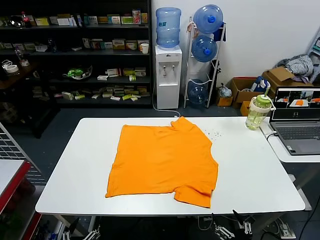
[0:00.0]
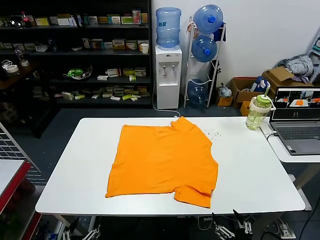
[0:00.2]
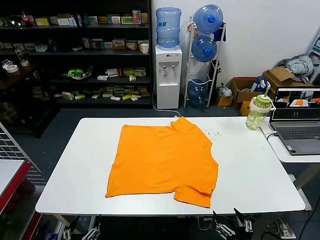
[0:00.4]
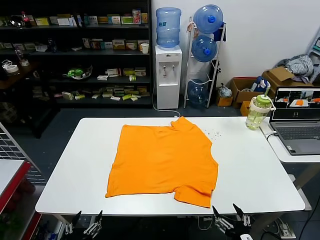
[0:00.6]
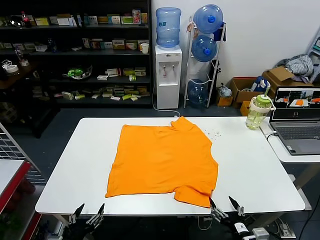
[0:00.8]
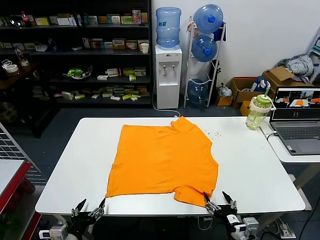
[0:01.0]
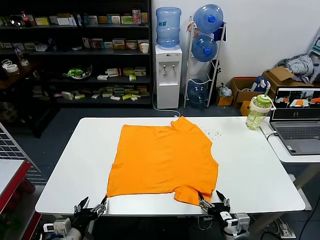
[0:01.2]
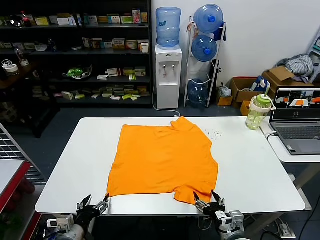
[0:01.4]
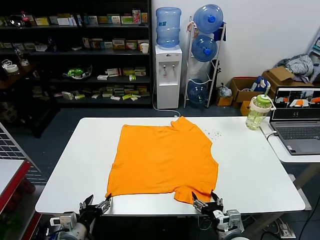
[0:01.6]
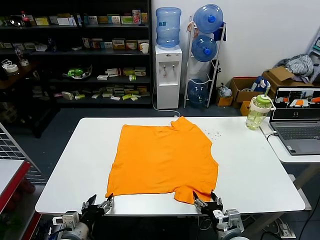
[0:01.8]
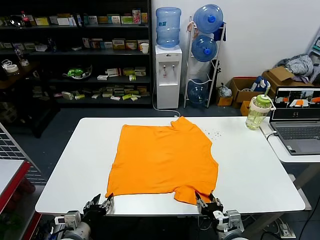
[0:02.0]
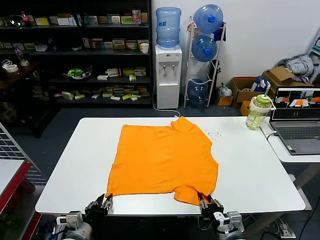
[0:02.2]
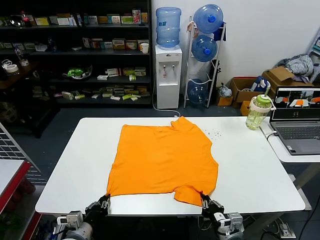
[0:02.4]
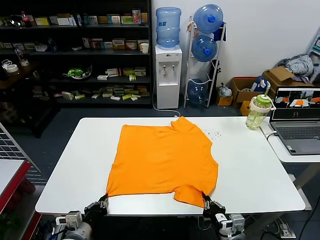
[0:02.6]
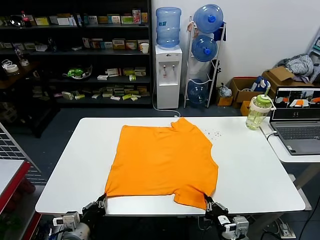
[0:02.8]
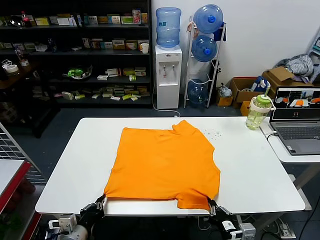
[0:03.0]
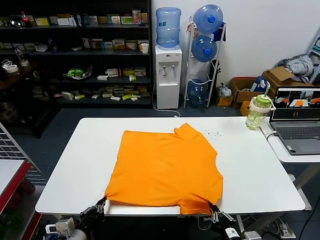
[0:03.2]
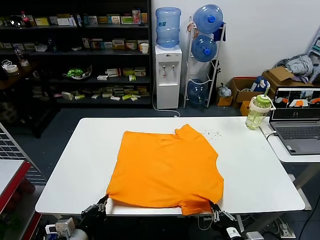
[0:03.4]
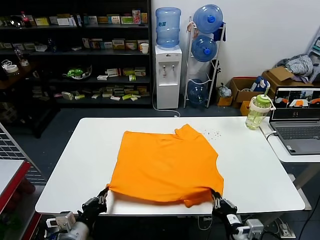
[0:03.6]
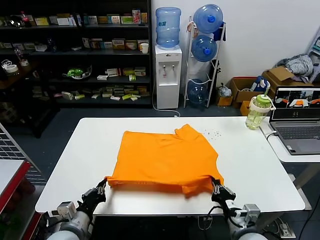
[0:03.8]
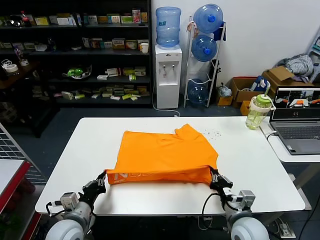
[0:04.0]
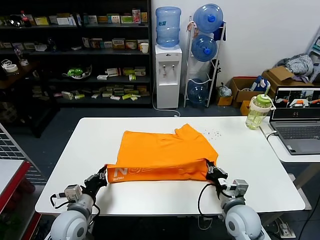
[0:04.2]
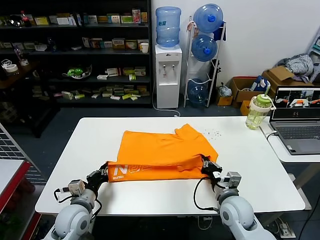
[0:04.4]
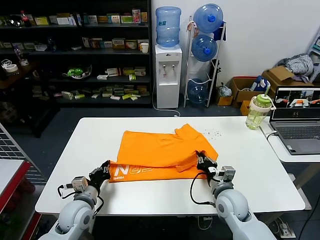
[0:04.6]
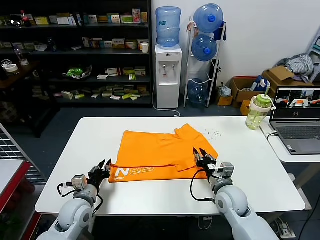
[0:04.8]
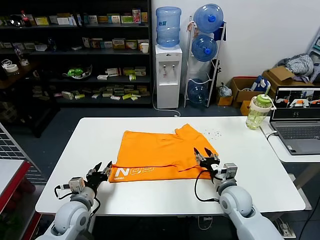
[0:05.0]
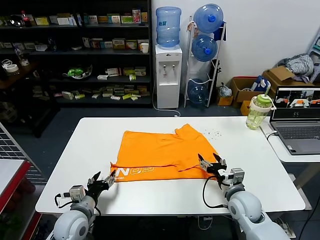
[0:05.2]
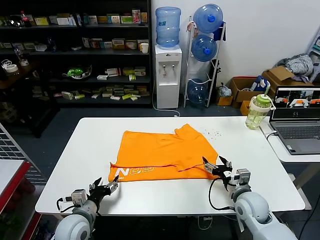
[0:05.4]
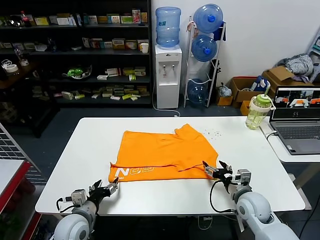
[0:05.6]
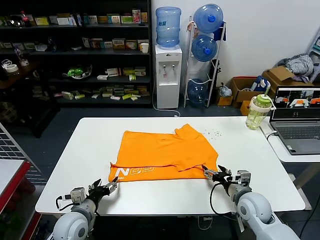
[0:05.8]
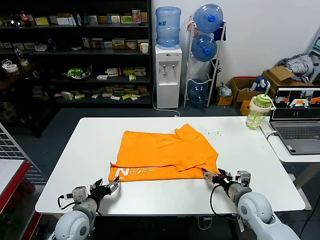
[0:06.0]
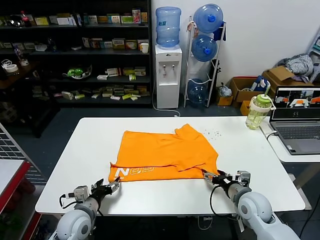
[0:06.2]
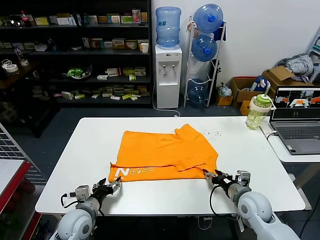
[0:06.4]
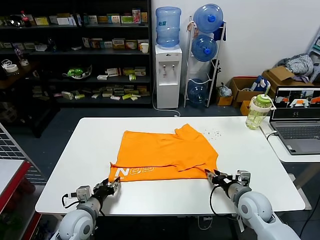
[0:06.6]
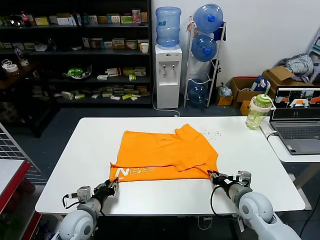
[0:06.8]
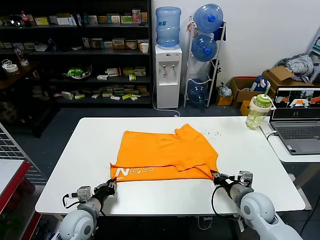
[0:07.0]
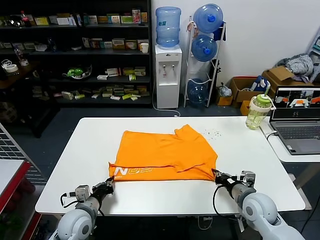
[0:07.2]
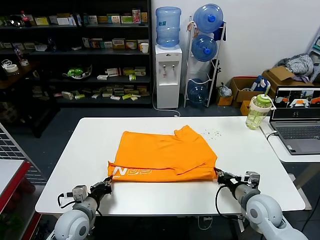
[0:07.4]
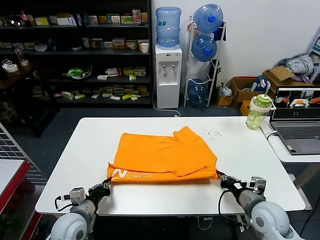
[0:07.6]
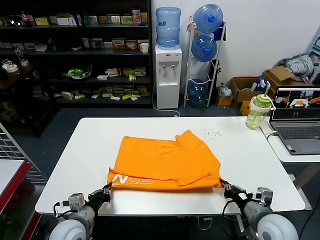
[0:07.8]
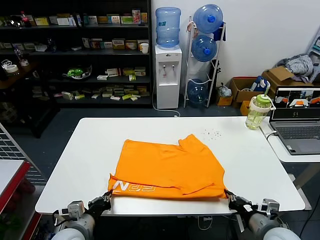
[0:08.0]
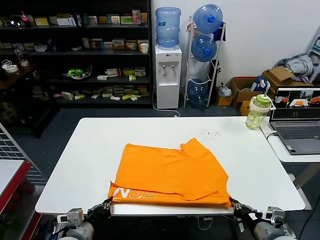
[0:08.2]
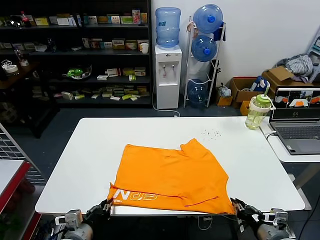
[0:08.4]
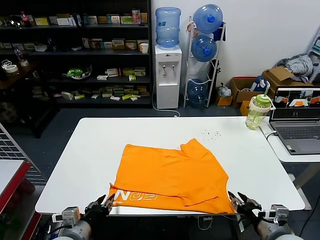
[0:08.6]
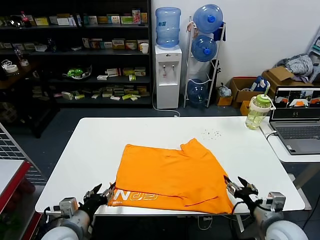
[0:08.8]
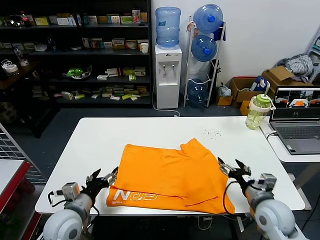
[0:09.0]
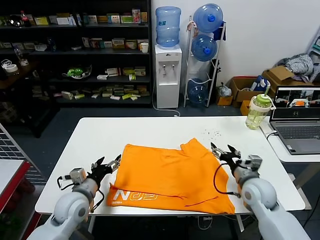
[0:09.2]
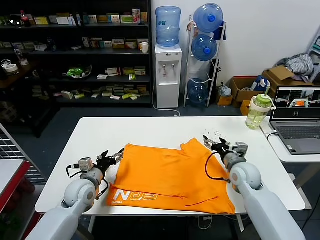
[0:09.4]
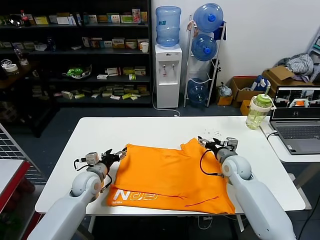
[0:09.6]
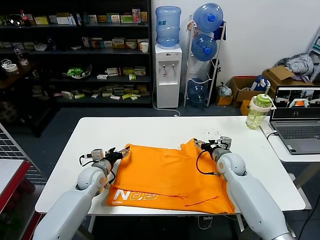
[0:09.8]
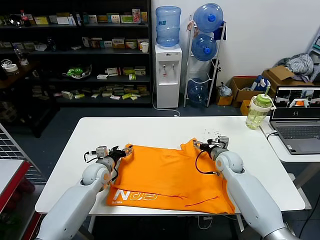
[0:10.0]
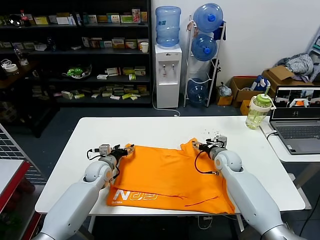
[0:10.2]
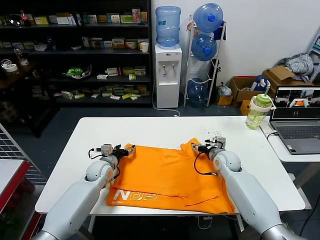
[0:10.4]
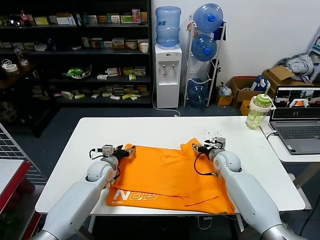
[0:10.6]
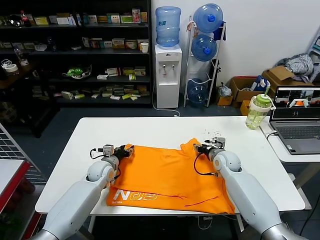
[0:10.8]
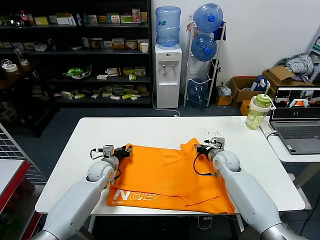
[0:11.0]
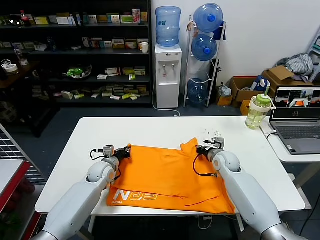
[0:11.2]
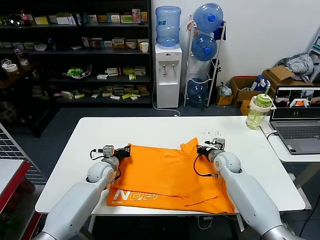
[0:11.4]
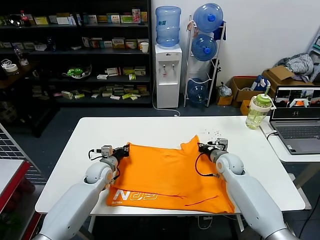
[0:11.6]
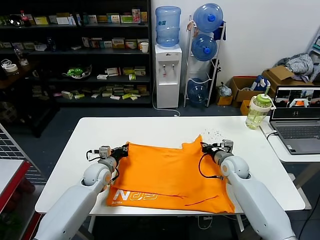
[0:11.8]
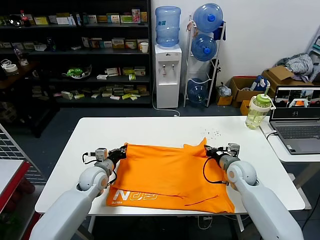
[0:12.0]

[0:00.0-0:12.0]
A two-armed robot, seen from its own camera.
Task of the whole recording: fold and organize the clothes.
Step, 0.0 to 2.4 s: use both grippers simultaneously to clamp the lower edge of the clothing fabric.
Step, 2.6 to 4.6 s: use both grippers to drag the lower edge of the fabric forward and fold it over the upper edge.
Step, 4.8 to 8.4 s: Drag the clothes downward with both gripper.
Step, 8.6 to 11.2 s: use both grippers simultaneously to clamp the upper edge of the clothing fabric.
1.6 to 3.0 s: The right gripper heads backward, covering about 5 cm, and closes its fingers. Meanwhile the left gripper closes its fingers.
3.0 to 4.4 s: The right gripper travels forward by roughly 20 cm; the left gripper heads forward, covering some 10 cm.
4.4 to 6.0 s: The left gripper opens. The right gripper moves to the right, some 5 cm, and opens up.
6.0 to 7.6 s: The left gripper closes its fingers. Meanwhile the right gripper heads backward, covering some 5 cm, and closes up.
7.6 to 9.0 s: The right gripper reaches some 10 cm backward, then returns, and opens up, while the left gripper opens.
9.0 to 10.4 s: Both grippers move forward, about 20 cm.
10.4 to 12.0 s: The left gripper closes up. Meanwhile the right gripper shifts about 5 cm backward, and closes.

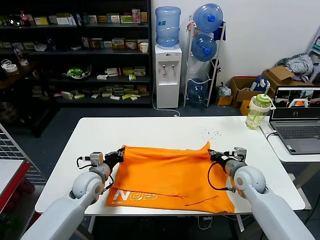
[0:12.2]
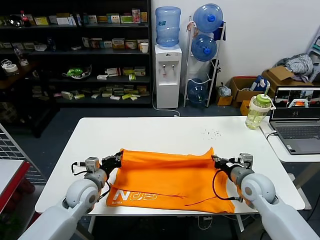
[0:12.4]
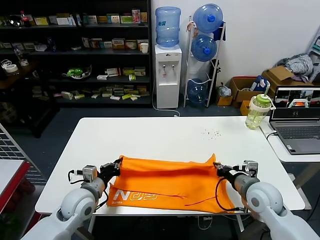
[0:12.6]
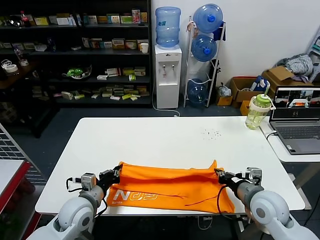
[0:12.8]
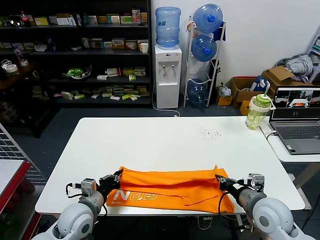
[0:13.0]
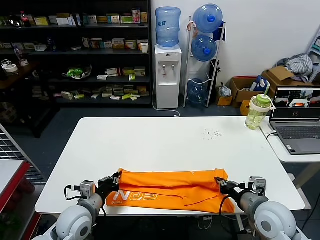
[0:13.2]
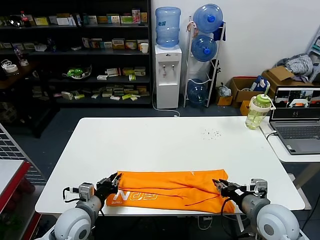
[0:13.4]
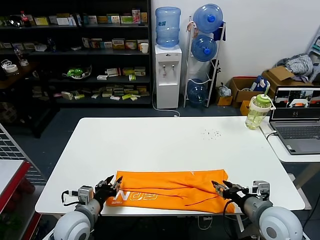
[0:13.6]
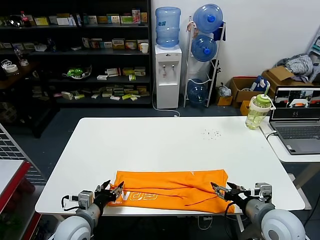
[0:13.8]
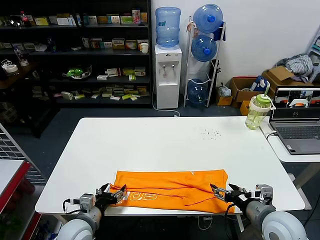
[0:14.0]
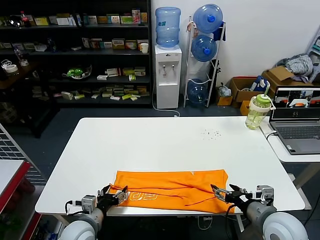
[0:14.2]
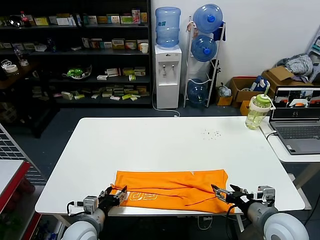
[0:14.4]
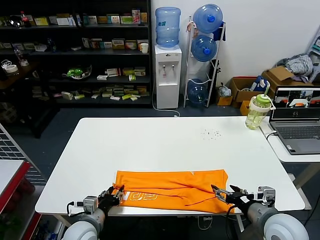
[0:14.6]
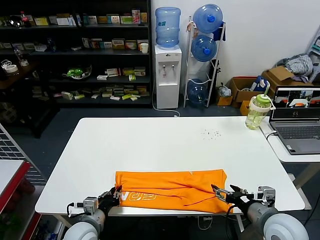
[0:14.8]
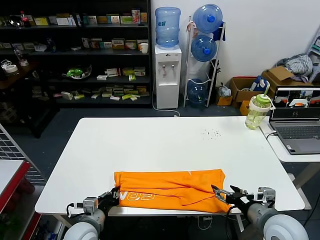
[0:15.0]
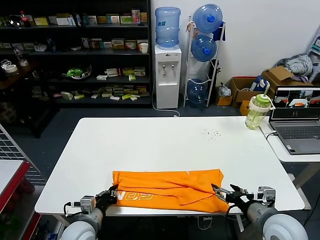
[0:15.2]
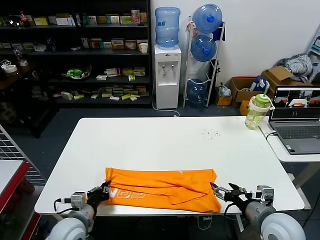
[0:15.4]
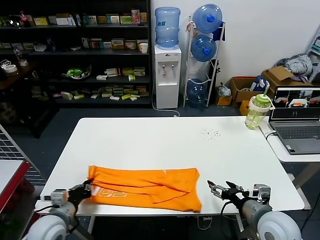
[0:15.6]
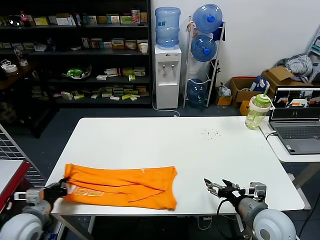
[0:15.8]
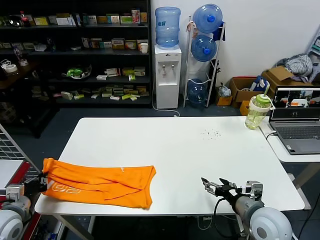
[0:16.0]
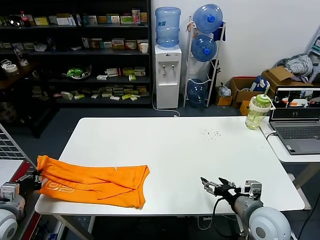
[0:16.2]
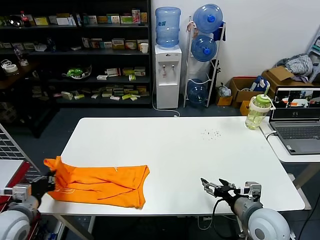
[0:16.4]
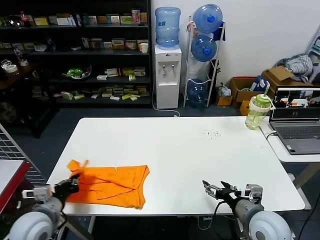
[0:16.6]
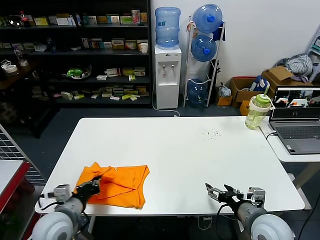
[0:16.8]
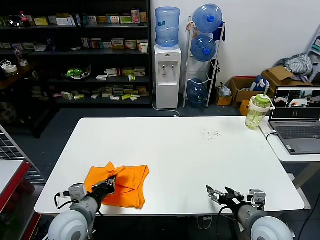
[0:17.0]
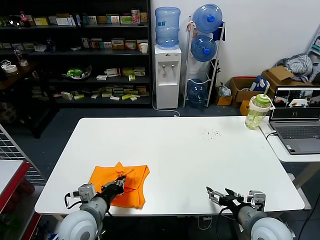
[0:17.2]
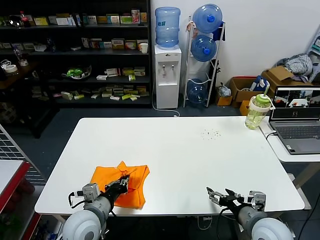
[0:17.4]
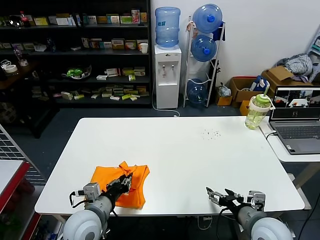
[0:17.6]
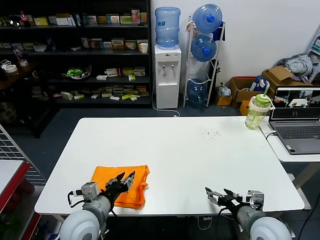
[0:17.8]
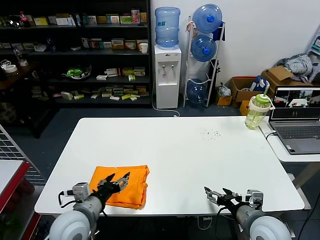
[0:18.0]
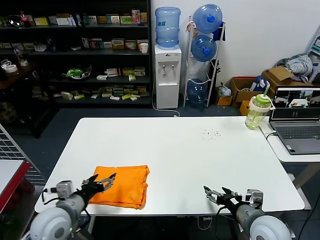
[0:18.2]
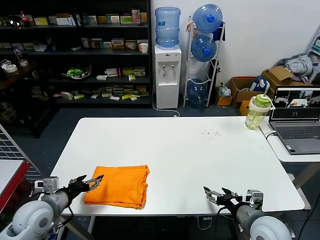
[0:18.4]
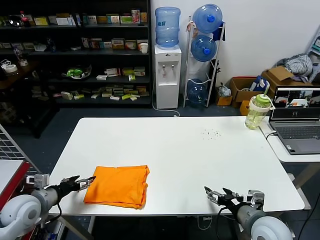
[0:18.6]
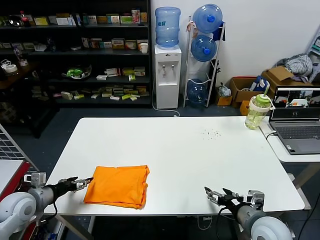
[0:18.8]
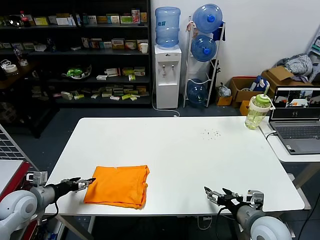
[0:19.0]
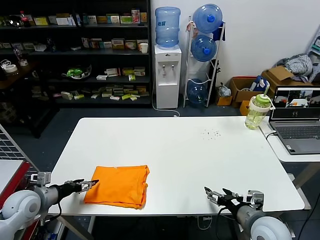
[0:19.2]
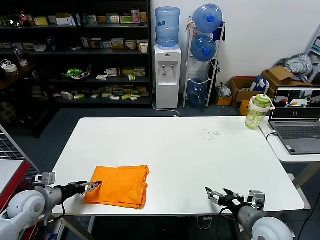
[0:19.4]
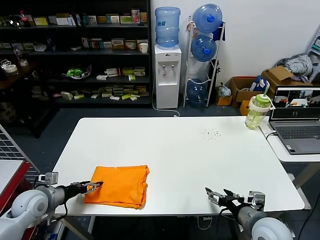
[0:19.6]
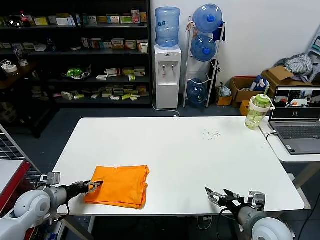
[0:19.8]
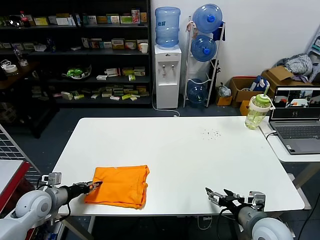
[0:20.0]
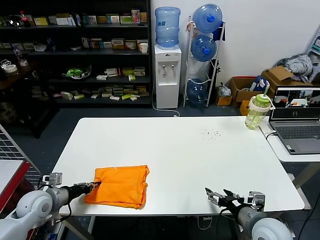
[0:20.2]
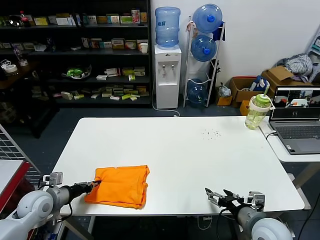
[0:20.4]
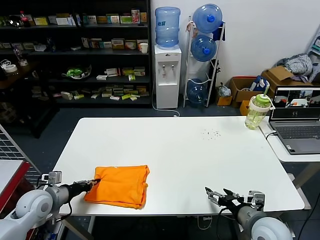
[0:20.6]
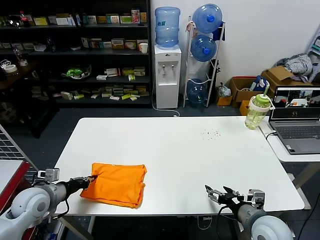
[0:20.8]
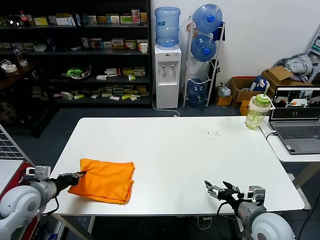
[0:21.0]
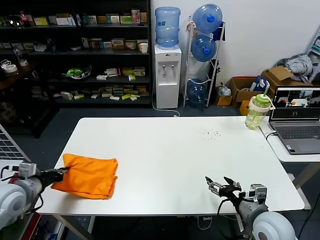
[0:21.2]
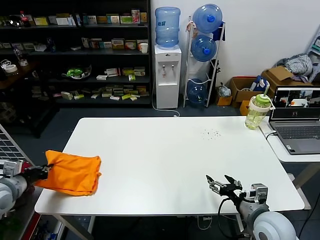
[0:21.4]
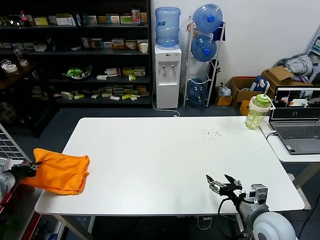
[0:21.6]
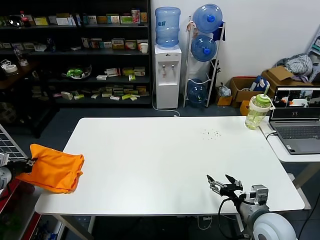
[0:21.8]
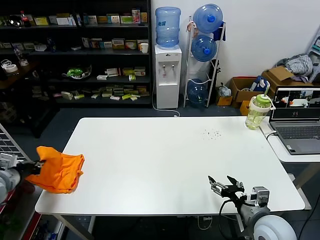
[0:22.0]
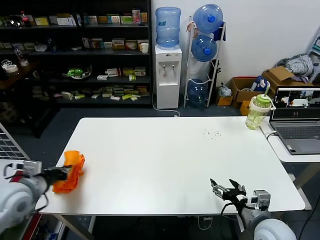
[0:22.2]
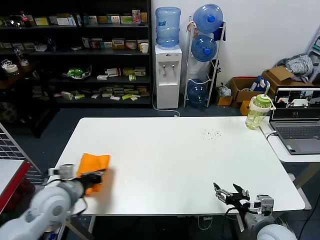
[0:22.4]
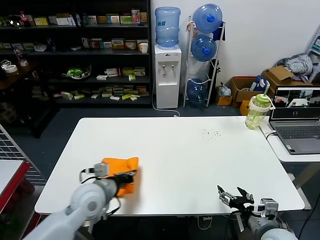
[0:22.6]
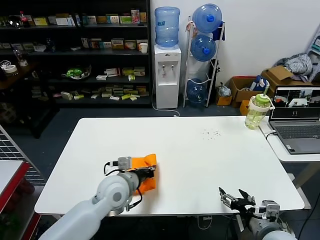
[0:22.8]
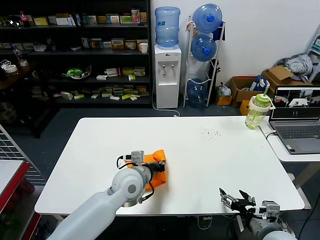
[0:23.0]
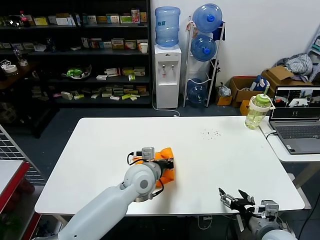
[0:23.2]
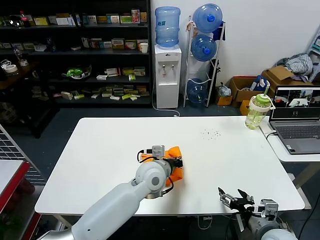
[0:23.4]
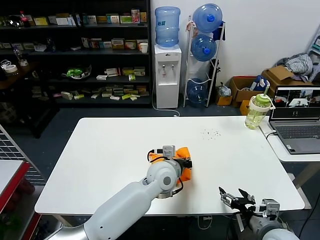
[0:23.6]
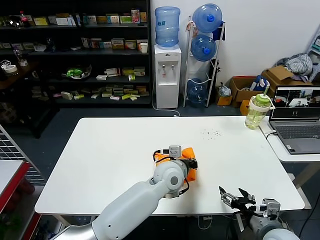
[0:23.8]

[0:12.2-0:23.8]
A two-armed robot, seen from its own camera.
Task of the whole recording: fold and organize the clothes.
Step, 12.2 to 13.4 s: use both grippers to drag the upper edge of the fabric backward and fold it over the lower edge.
Step, 13.6 to 14.8 s: use the left gripper to clamp the left edge of the fabric.
Step, 15.0 to 17.8 s: use the left gripper to drag the left edge of the fabric to the left and folds it over the right edge.
12.2 to 13.6 s: Both grippers travel together backward, approximately 15 cm. The right gripper opens. The left gripper opens up.
13.6 to 15.0 s: The right gripper opens. The left gripper moves roughly 5 cm, and closes its fingers.
15.0 to 16.6 s: The left gripper goes roughly 15 cm to the left and upward.
16.6 to 18.0 s: The left gripper travels to the right by approximately 15 cm, and opens up.
18.0 to 19.4 s: The left gripper shifts about 20 cm to the left.
19.4 to 21.0 s: The left gripper changes place by approximately 5 cm, and closes up.
21.0 to 22.4 s: The left gripper goes to the left and returns, some 10 cm each way.
22.4 to 23.8 s: The left gripper shifts about 35 cm to the right.
